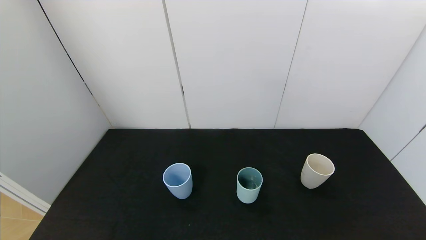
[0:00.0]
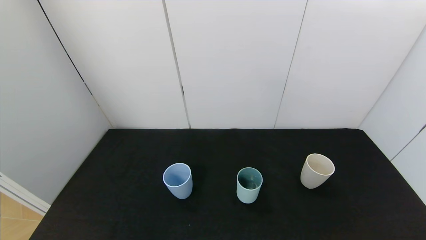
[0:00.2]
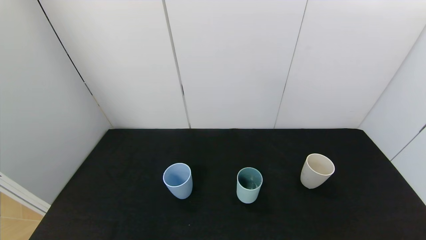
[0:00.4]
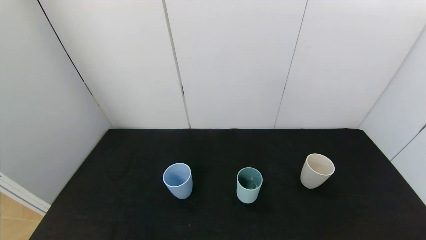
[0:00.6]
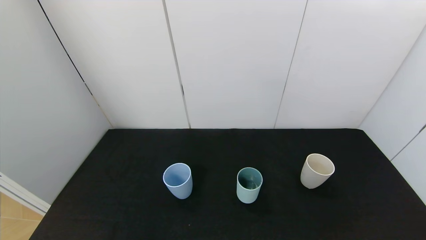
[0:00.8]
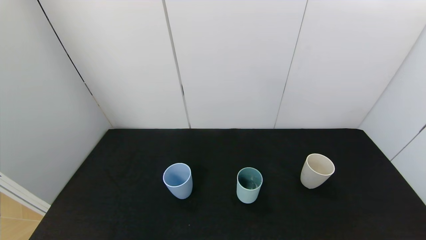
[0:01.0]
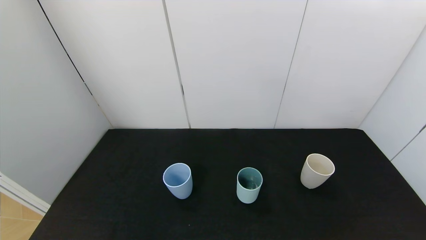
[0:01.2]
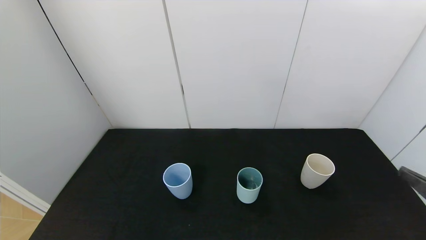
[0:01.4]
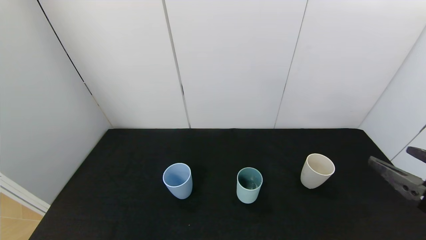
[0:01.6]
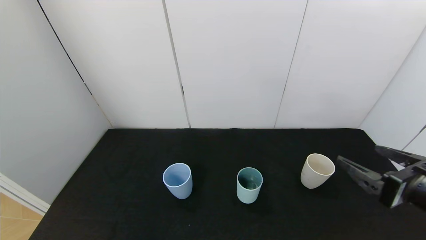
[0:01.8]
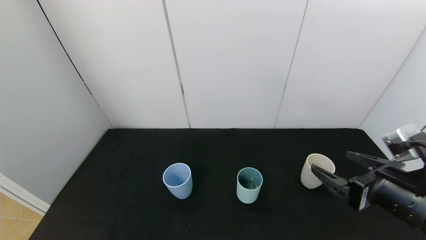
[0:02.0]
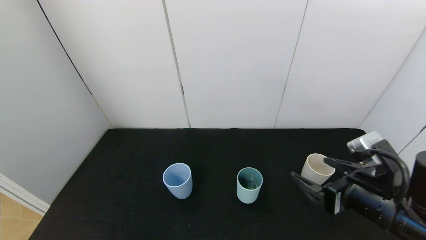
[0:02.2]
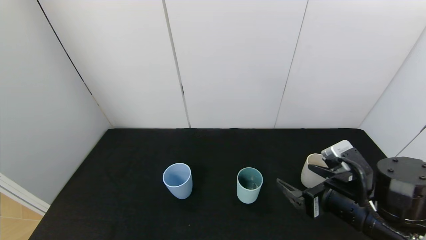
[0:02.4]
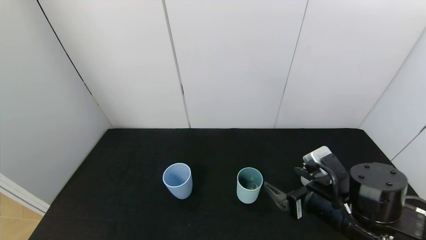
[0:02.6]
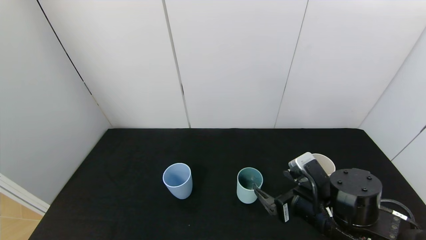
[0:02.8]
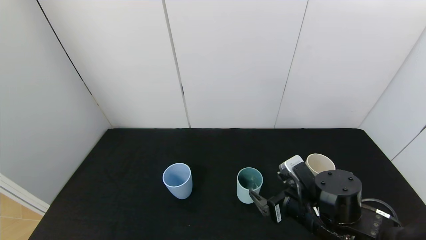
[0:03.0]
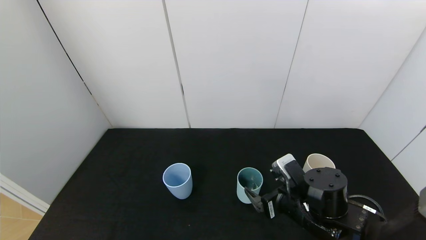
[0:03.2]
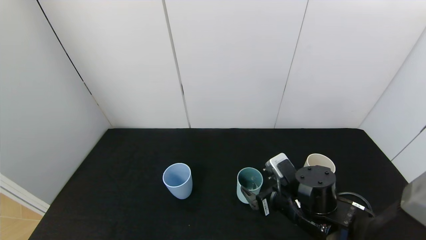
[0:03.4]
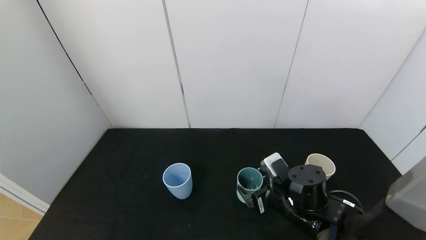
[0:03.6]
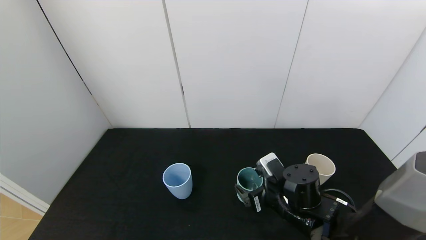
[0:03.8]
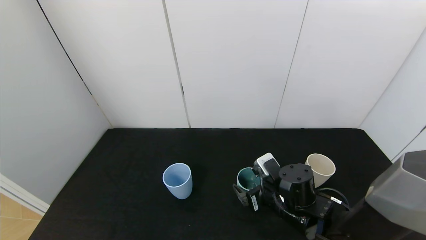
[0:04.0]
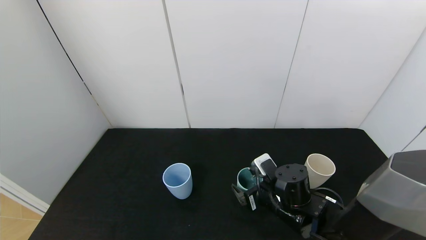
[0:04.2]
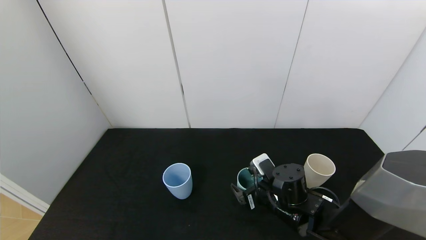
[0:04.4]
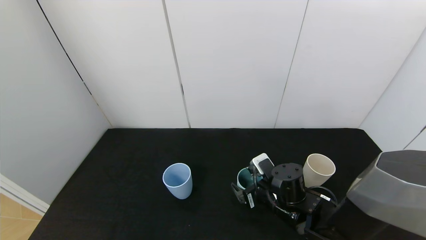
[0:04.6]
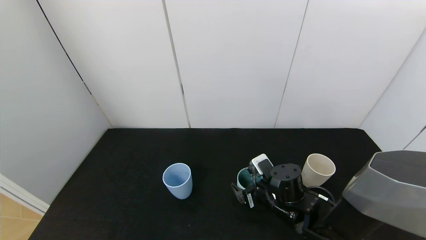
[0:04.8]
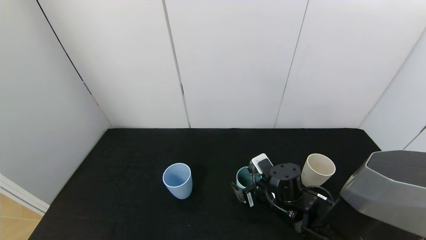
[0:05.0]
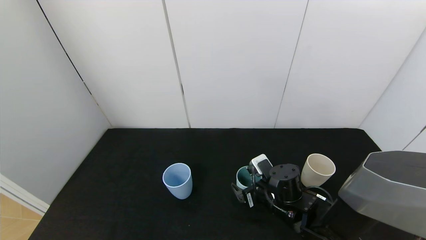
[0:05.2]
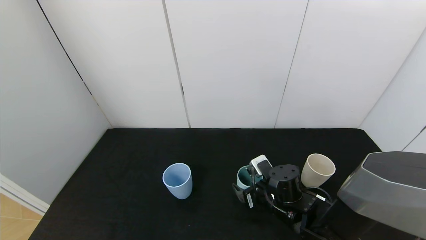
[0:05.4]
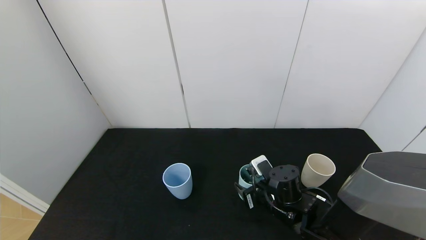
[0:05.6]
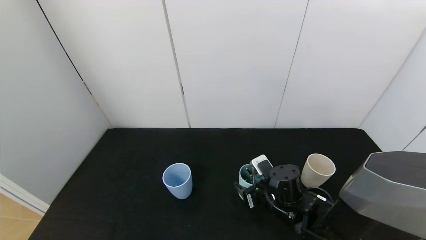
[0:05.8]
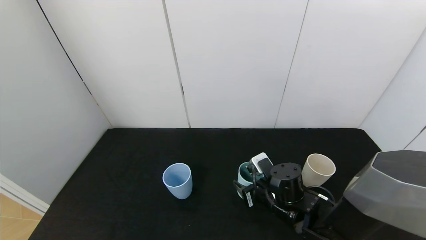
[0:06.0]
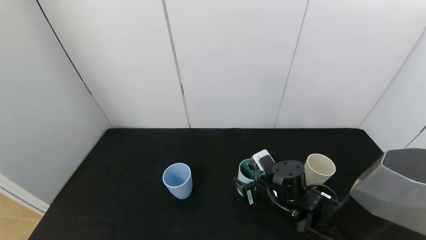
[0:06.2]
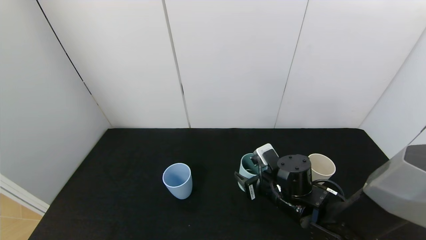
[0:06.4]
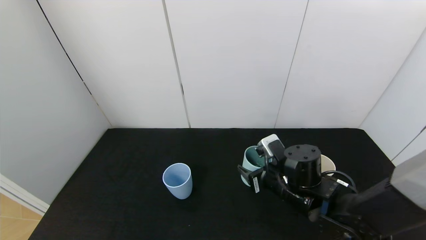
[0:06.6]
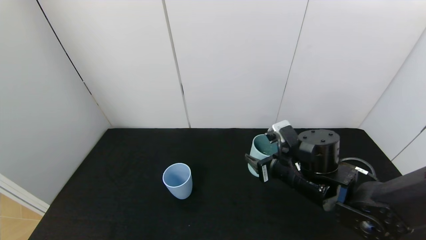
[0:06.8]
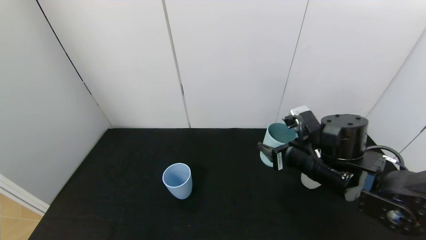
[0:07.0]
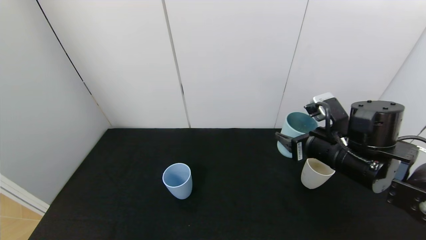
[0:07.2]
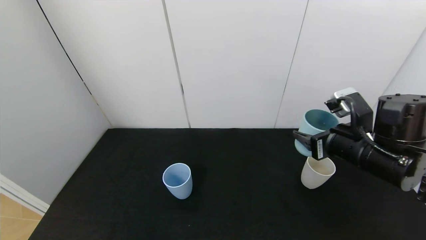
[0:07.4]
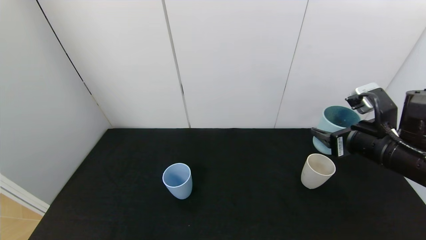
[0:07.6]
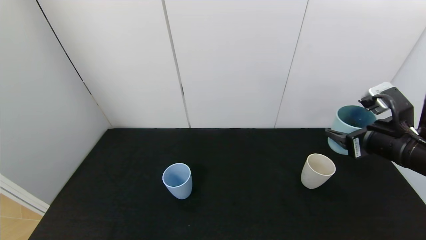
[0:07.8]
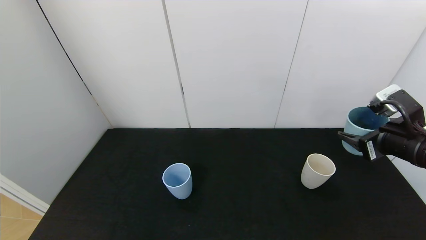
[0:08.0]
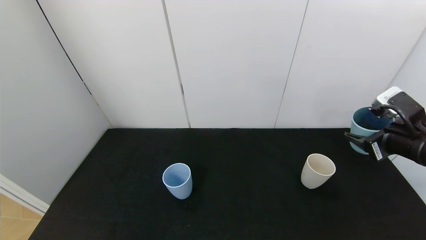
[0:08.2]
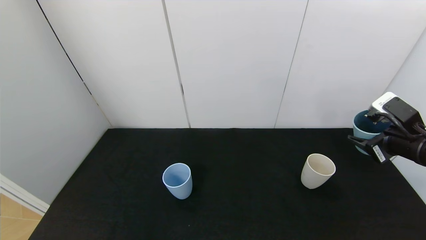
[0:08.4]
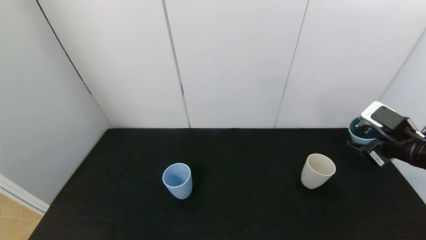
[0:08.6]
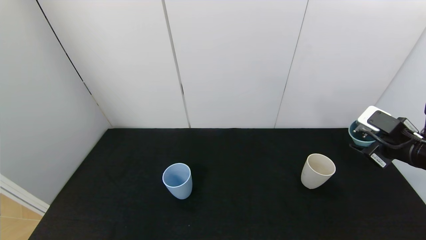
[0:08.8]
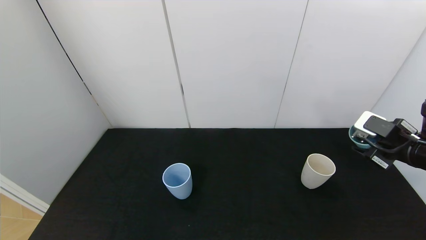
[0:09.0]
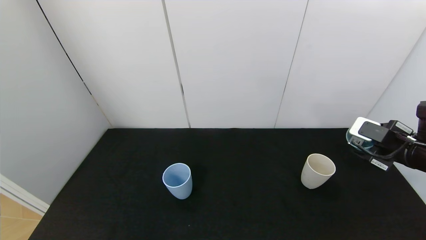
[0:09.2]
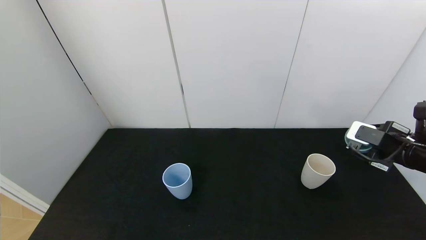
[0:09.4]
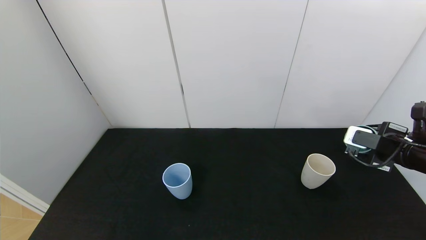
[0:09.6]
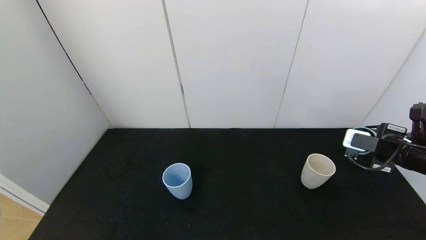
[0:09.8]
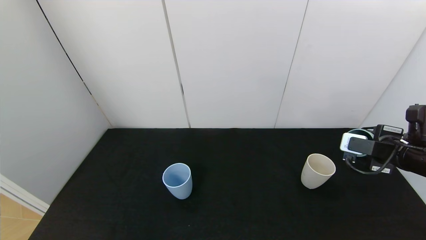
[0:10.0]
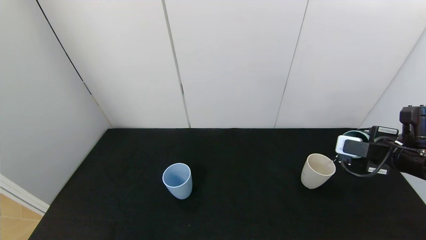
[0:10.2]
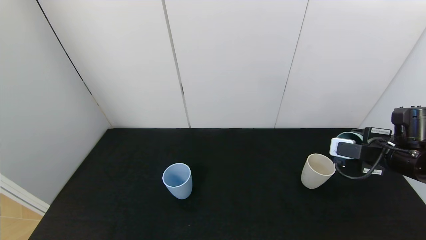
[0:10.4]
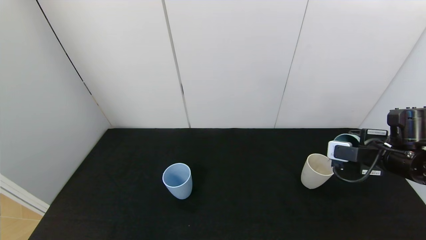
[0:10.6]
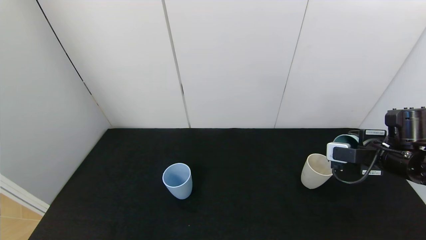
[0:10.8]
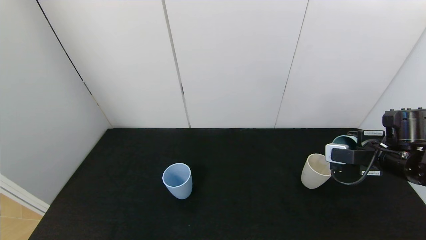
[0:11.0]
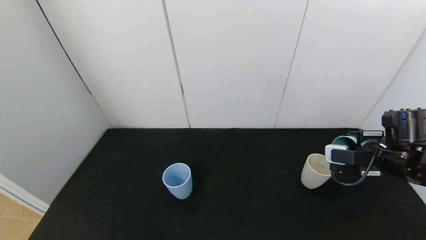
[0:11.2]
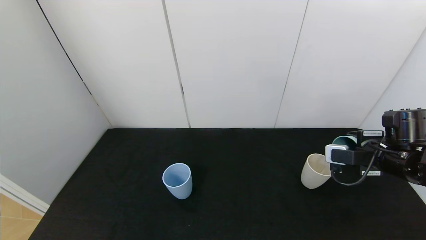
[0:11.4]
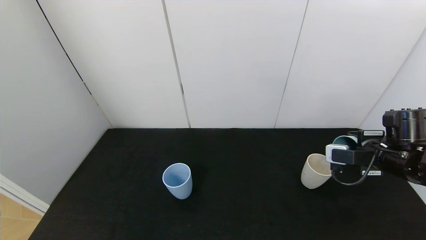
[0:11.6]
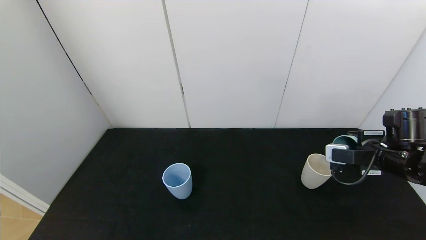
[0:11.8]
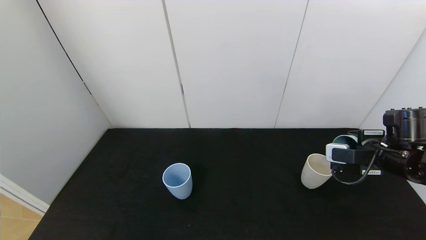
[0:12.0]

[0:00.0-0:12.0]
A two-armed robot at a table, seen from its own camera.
Task of the whole recording: use the gripper to pour the water into the other two cups on black table.
Step, 0:00.0 to 0:06.0: Grasp the green cup with the right gripper.
0:00.0 to 0:01.6: The right gripper heads forward and upward, covering roughly 20 cm.
0:01.6 to 0:03.0: The right gripper moves to the left, downward and forward, approximately 20 cm.
0:03.0 to 0:04.4: The right gripper moves forward, about 5 cm.
0:04.4 to 0:06.0: The right gripper closes up.
0:06.0 to 0:07.6: The right gripper is displaced upward and to the right by approximately 20 cm.
0:07.6 to 0:09.0: The right gripper heads to the right, covering some 10 cm.
0:10.4 to 0:12.0: The grippers make only small movements.

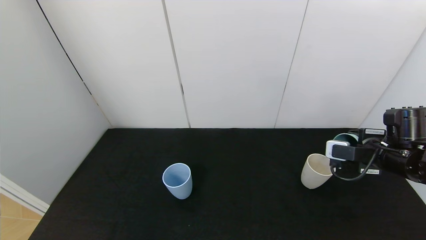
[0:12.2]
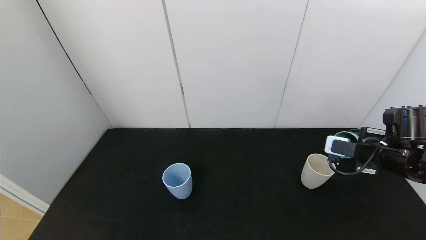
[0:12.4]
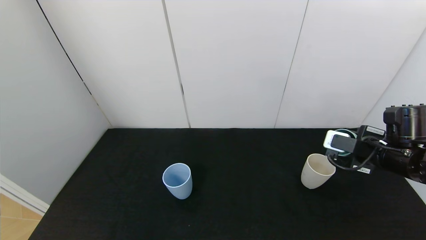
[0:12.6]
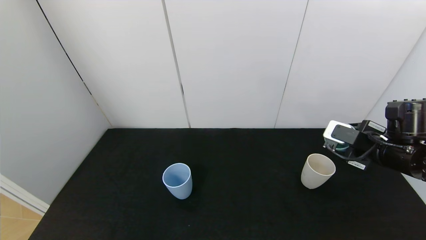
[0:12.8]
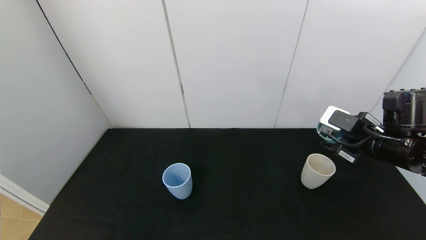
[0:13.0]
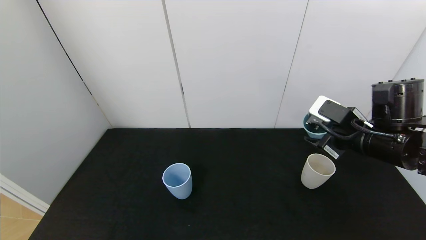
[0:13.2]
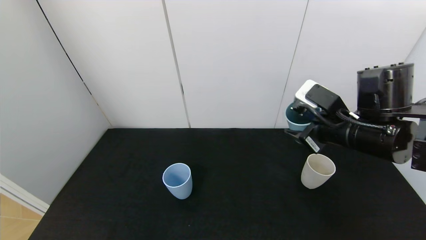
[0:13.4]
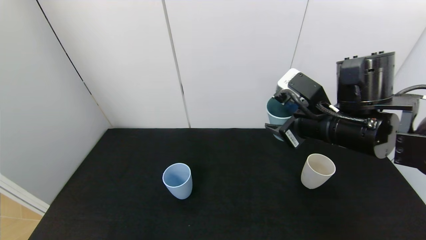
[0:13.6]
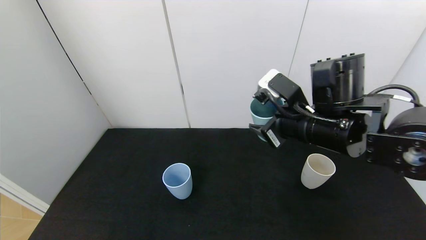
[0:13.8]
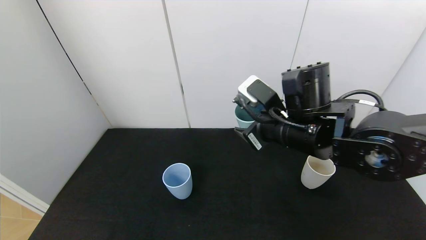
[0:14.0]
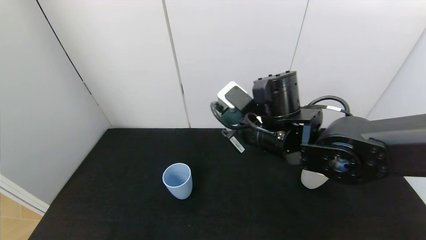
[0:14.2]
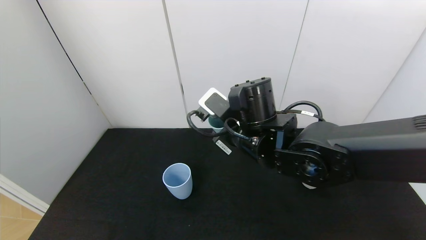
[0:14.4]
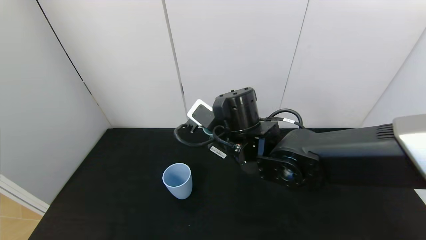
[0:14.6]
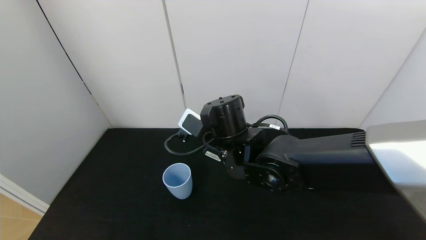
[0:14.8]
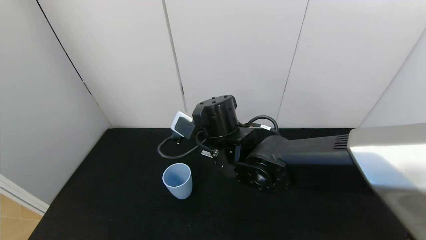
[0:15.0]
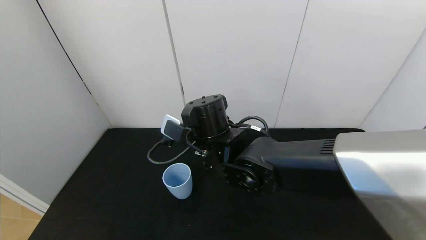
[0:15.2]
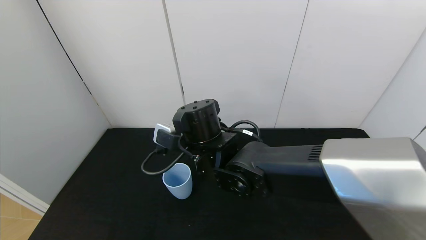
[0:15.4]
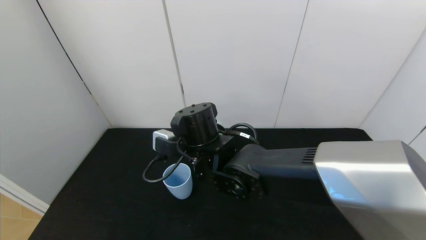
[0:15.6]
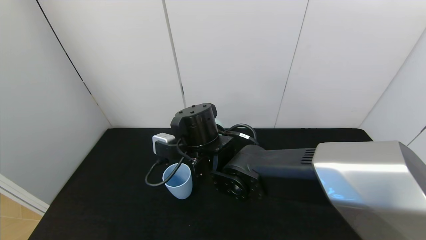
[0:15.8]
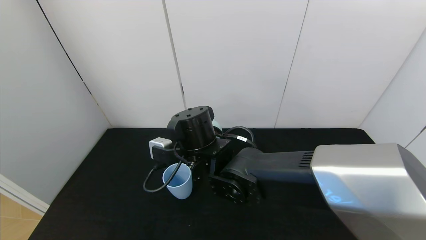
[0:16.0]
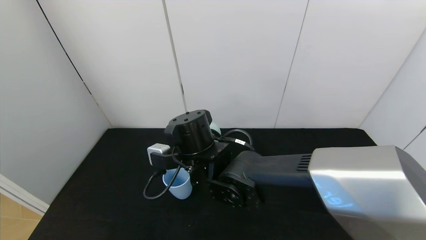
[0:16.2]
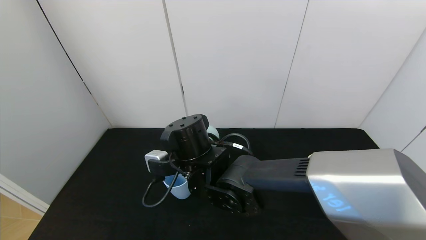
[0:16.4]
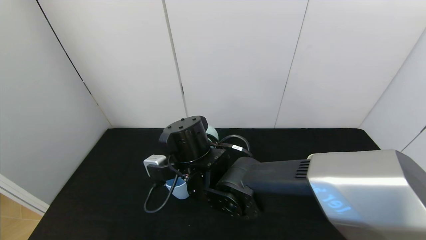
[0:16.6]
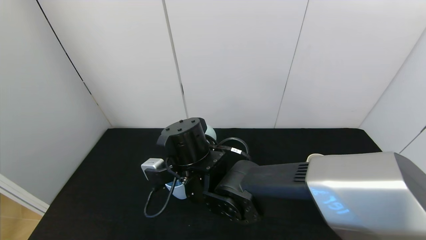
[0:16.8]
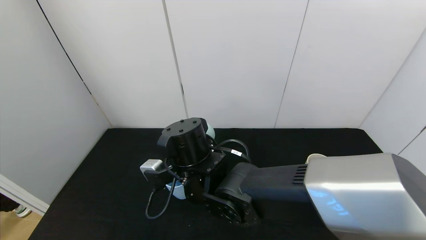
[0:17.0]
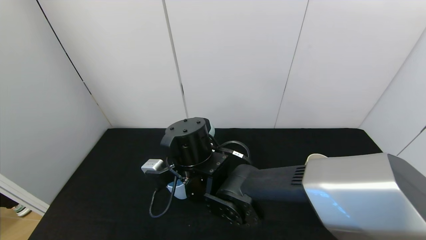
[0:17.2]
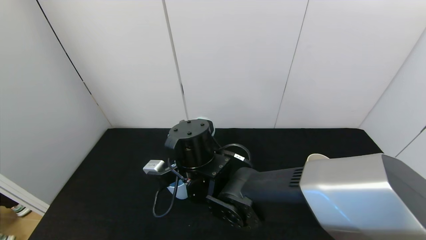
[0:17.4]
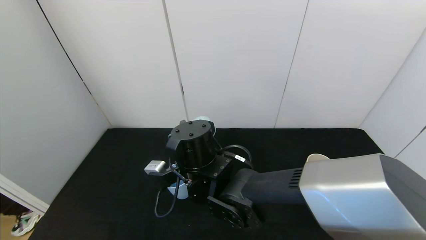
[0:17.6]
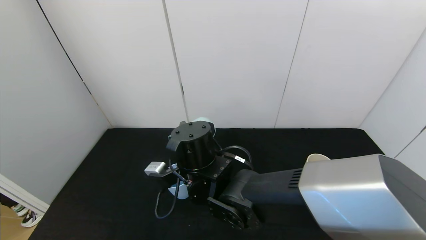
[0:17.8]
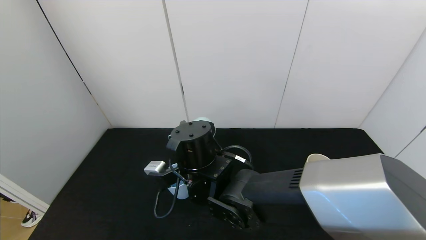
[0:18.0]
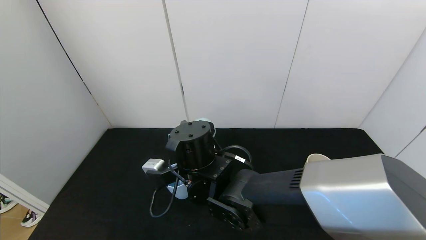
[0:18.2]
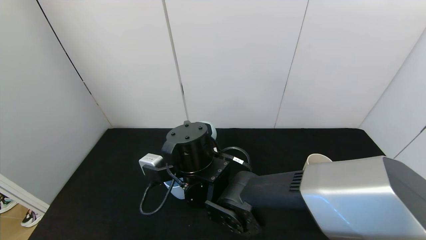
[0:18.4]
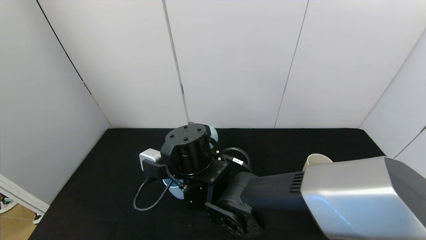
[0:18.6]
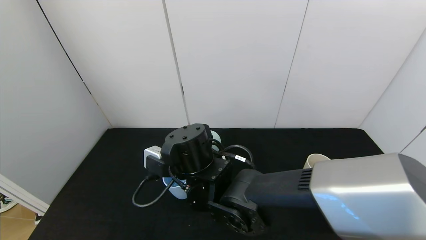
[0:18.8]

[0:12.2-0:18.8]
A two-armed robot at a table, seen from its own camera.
Task of the whole recording: use the gripper to pour the water into the other two cups on black table.
0:12.2 to 0:13.8: The right gripper heads to the left and upward, covering some 20 cm.
0:13.8 to 0:15.4: The right gripper shifts roughly 15 cm to the left.
